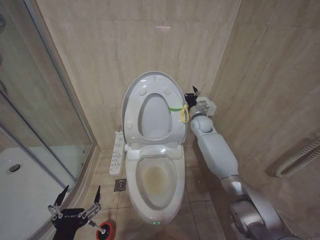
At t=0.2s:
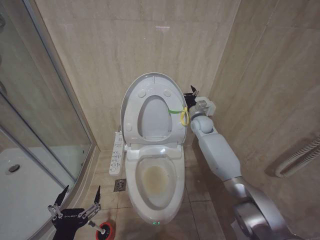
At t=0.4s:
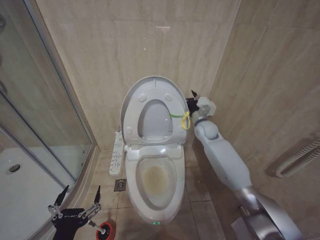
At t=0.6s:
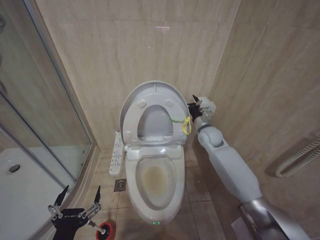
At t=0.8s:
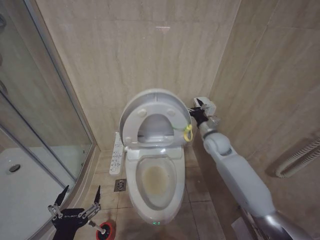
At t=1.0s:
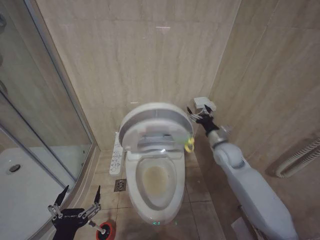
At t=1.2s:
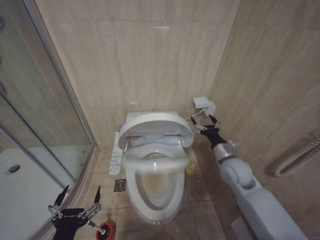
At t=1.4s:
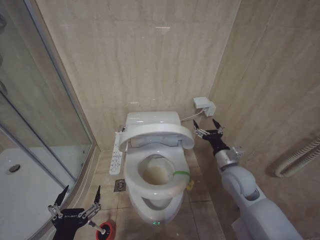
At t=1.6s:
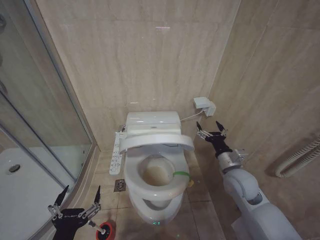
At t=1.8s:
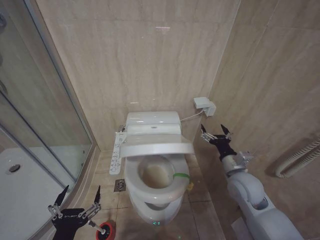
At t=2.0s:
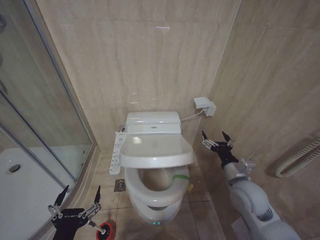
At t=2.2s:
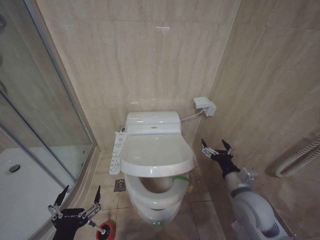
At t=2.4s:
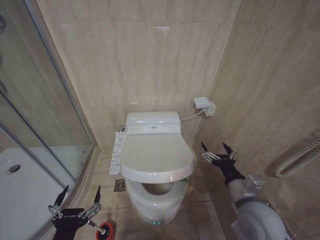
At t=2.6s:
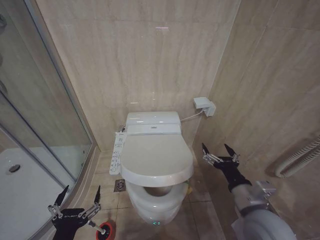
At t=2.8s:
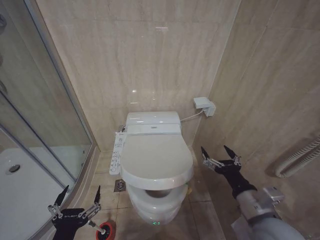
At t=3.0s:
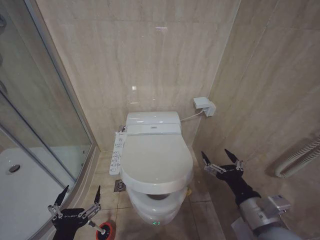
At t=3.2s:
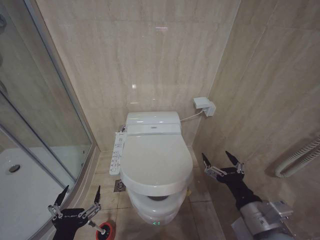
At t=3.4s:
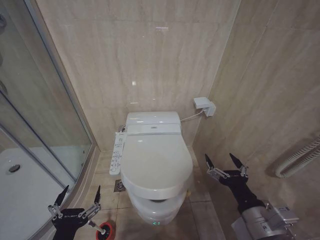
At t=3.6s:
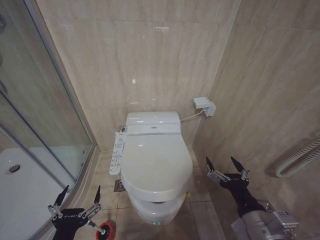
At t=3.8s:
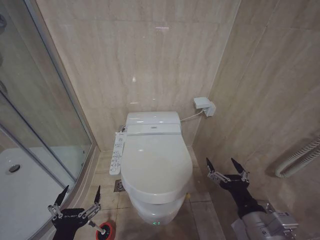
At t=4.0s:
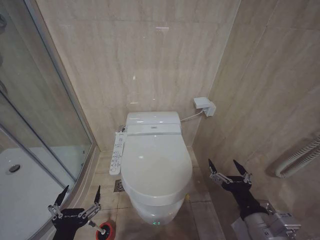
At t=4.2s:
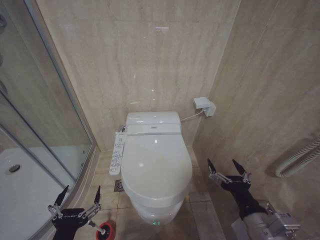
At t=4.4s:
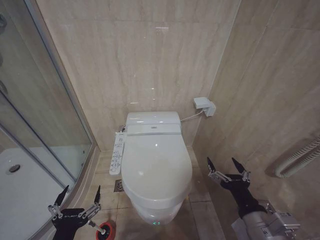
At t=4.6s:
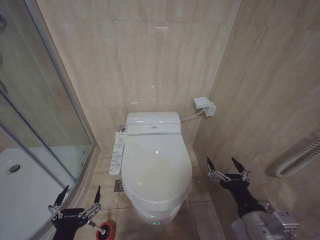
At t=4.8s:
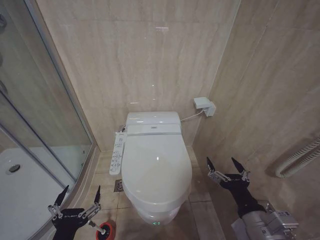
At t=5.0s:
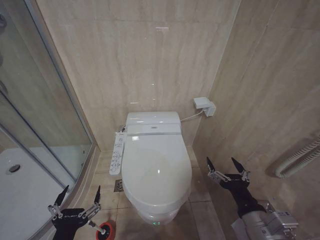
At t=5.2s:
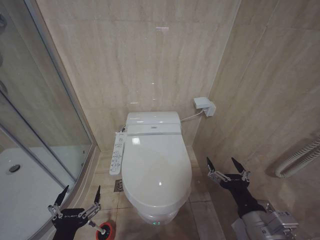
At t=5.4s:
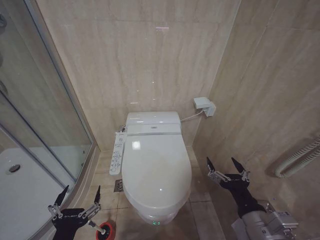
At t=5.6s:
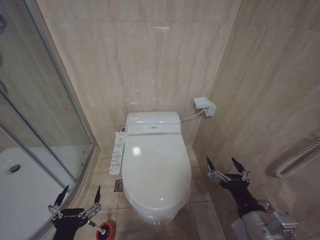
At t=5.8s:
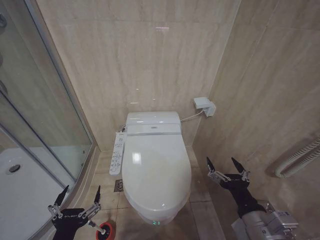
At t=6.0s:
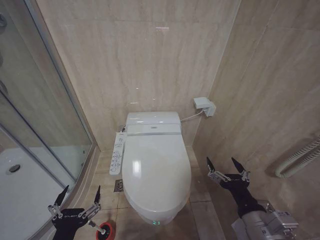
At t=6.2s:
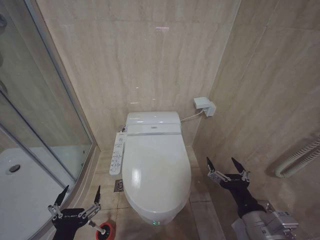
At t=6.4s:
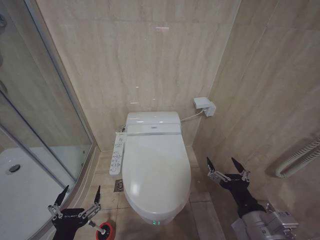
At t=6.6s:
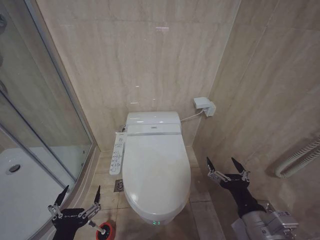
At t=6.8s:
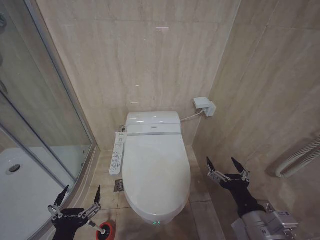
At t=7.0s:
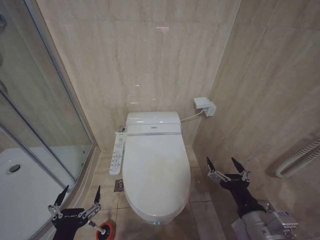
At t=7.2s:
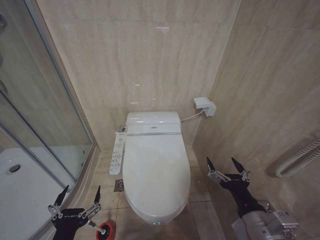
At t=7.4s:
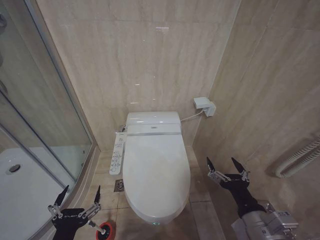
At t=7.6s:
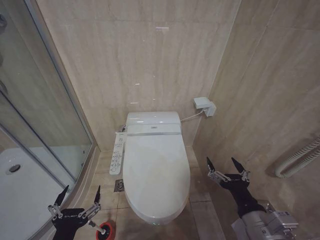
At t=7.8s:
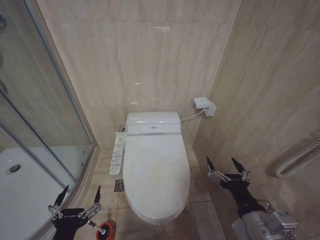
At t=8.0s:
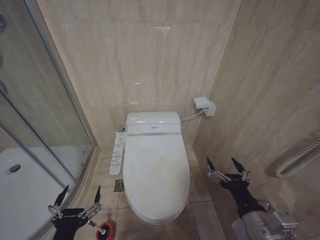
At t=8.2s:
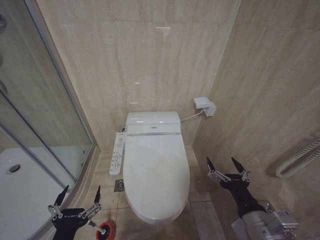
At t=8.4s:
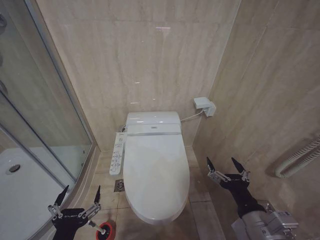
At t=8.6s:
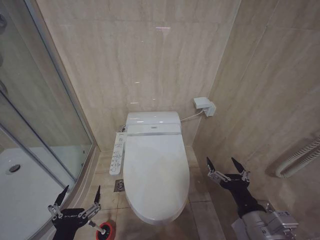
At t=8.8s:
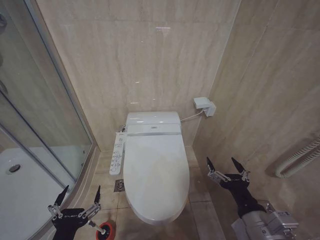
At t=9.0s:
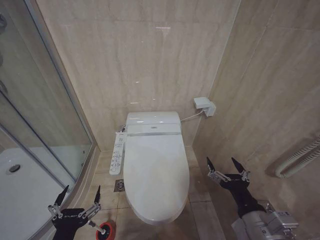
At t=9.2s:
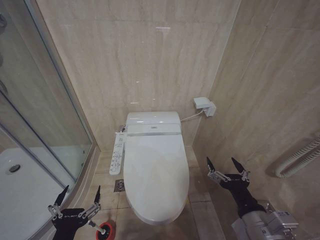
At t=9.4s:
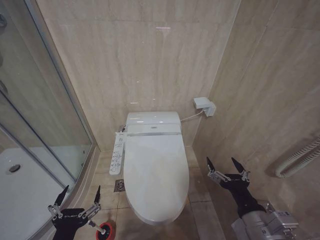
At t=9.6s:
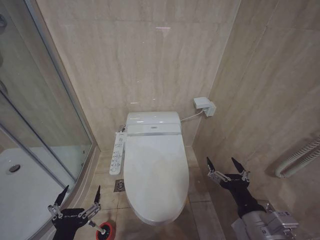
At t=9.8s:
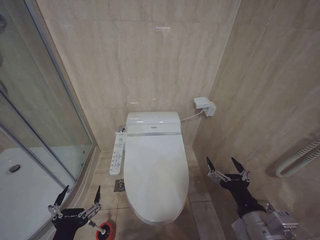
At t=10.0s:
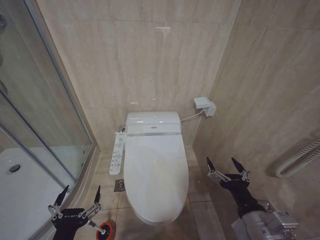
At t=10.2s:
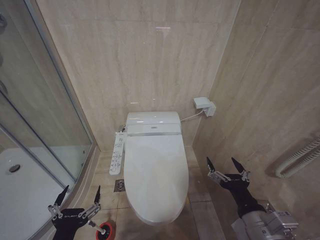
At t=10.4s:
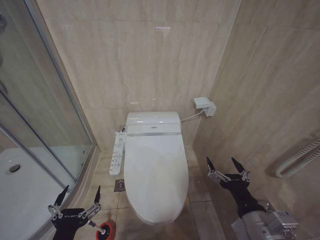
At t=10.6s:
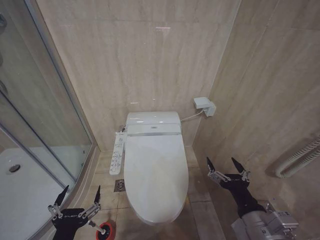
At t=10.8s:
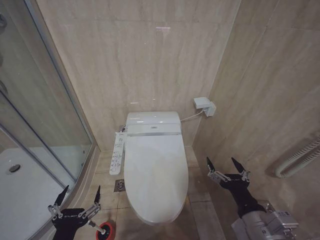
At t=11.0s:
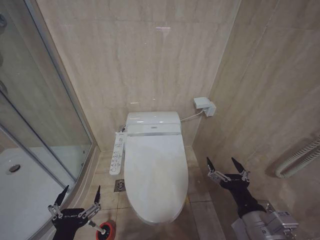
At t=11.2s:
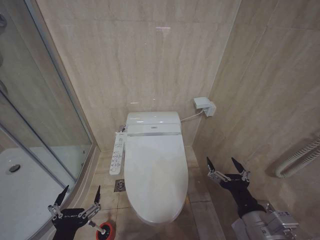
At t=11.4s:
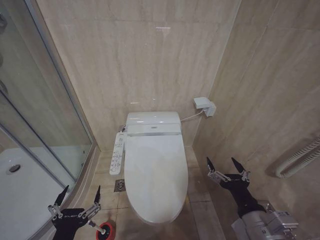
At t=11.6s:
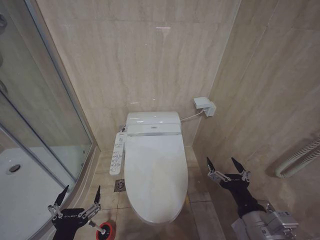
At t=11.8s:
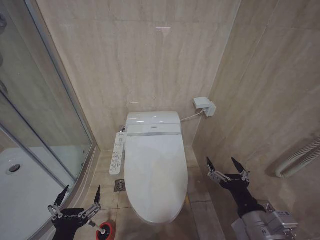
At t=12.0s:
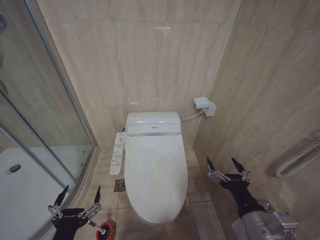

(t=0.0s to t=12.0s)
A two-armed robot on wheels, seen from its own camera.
Task of the whole recording: Open the toilet lid, clean the toilet bowl with a toilet brush, close the toilet lid, and flush.
t=0.0s - t=1.6s: The right gripper goes approximately 25 cm backward.
t=1.6s - t=3.0s: The right gripper goes about 15 cm backward.
t=3.0s - t=4.4s: The grippers stay close to where they were, moving slightly.
t=4.4s - t=12.0s: Both grippers stay about where they are.

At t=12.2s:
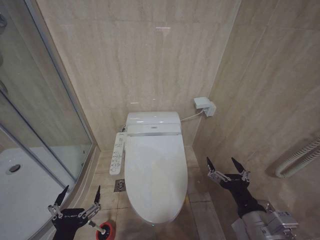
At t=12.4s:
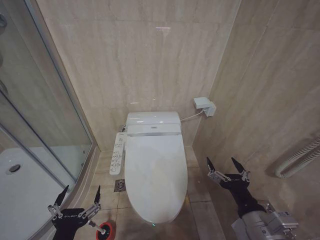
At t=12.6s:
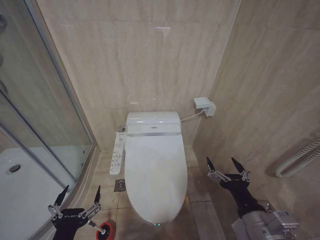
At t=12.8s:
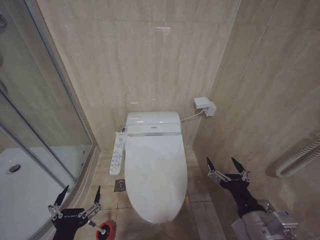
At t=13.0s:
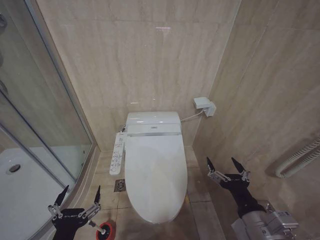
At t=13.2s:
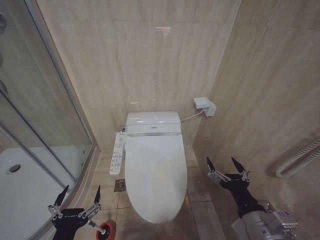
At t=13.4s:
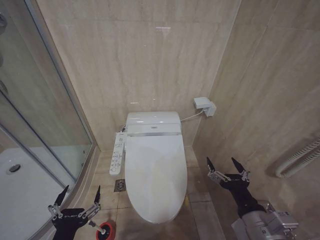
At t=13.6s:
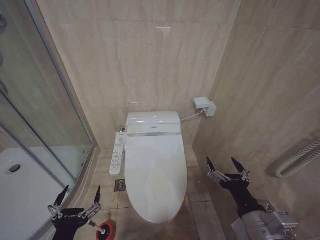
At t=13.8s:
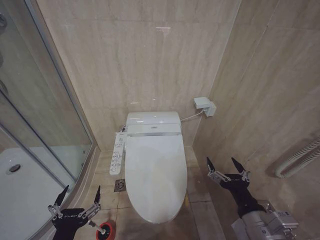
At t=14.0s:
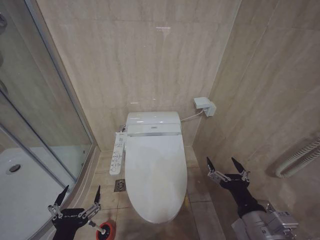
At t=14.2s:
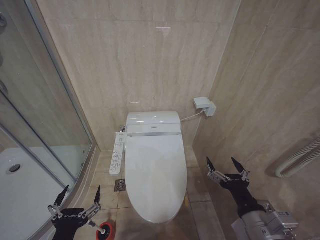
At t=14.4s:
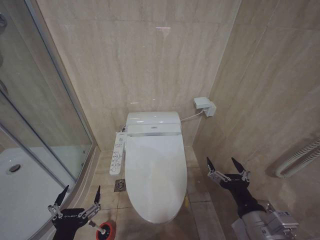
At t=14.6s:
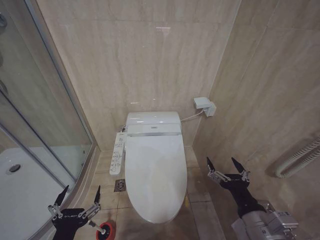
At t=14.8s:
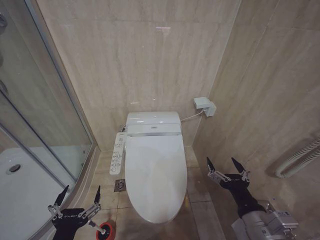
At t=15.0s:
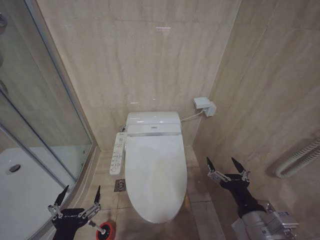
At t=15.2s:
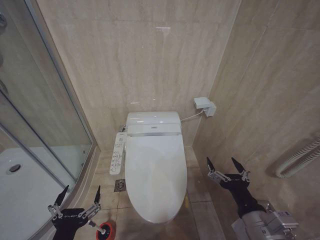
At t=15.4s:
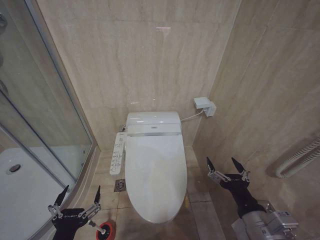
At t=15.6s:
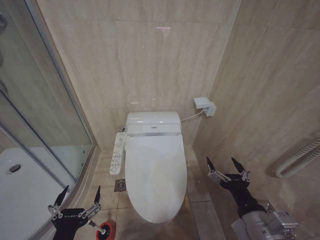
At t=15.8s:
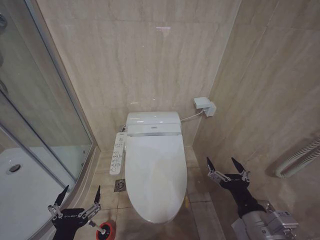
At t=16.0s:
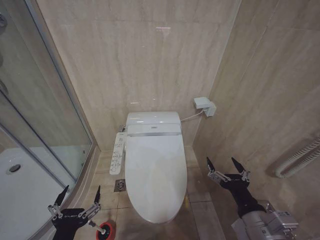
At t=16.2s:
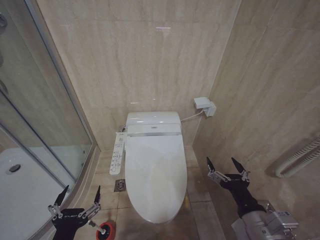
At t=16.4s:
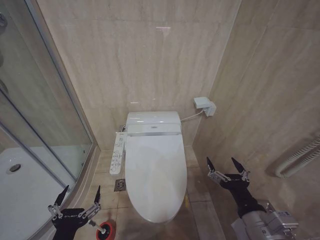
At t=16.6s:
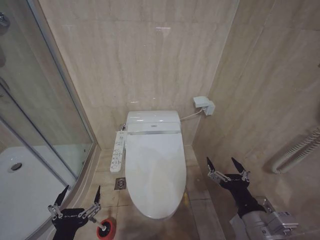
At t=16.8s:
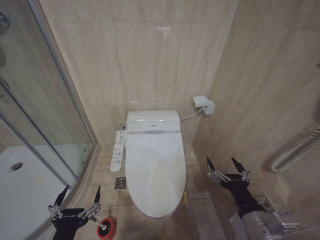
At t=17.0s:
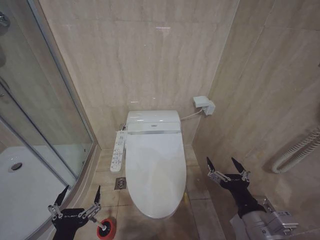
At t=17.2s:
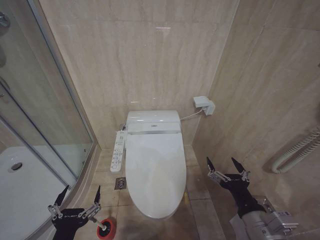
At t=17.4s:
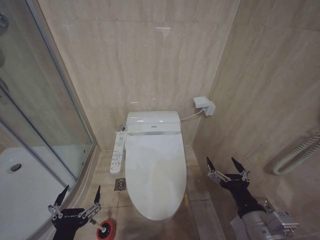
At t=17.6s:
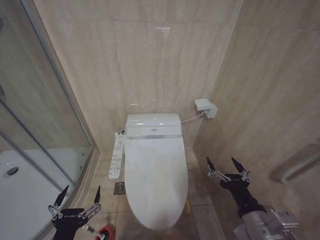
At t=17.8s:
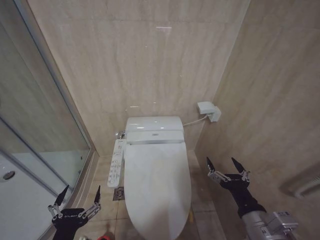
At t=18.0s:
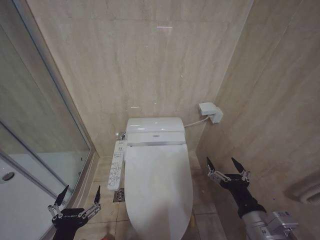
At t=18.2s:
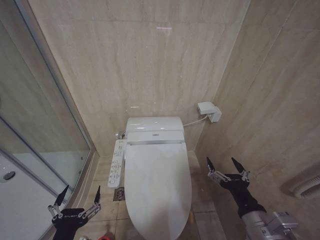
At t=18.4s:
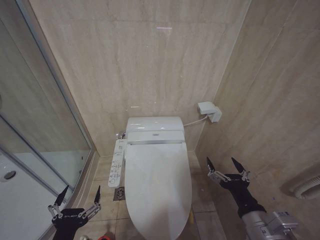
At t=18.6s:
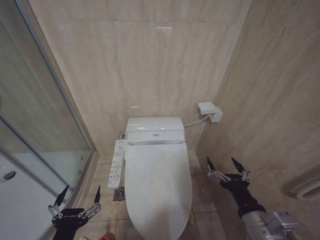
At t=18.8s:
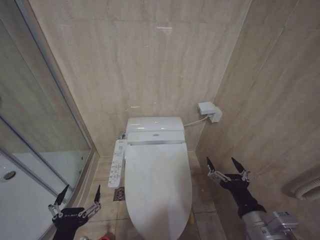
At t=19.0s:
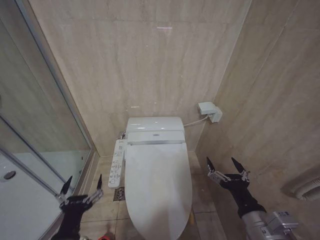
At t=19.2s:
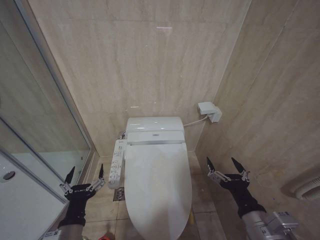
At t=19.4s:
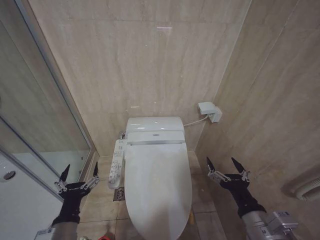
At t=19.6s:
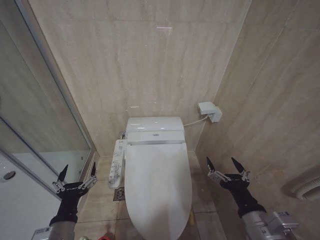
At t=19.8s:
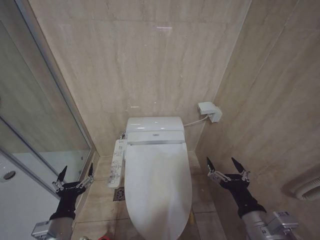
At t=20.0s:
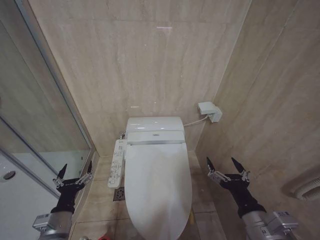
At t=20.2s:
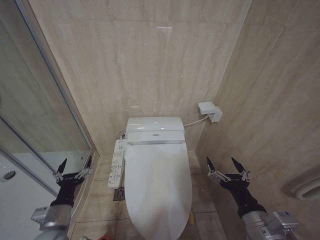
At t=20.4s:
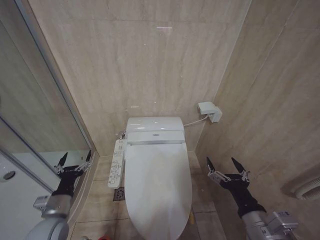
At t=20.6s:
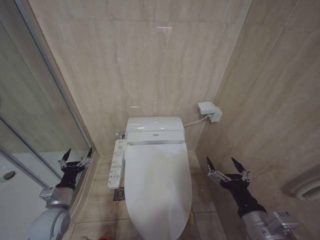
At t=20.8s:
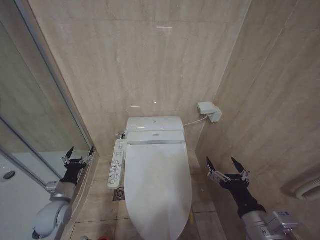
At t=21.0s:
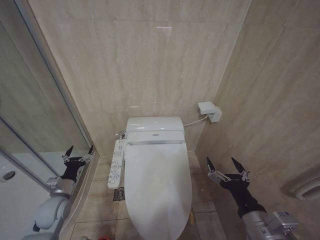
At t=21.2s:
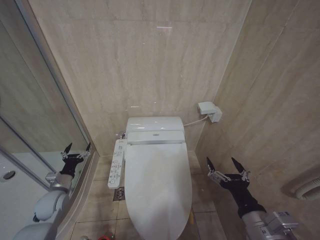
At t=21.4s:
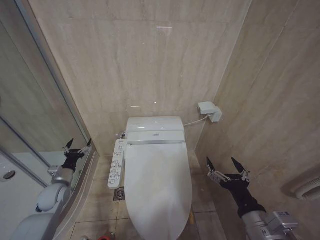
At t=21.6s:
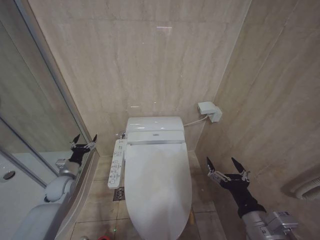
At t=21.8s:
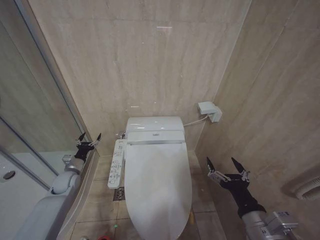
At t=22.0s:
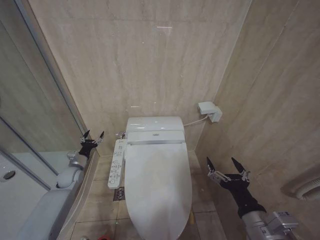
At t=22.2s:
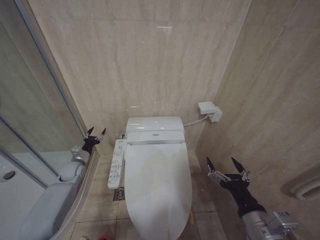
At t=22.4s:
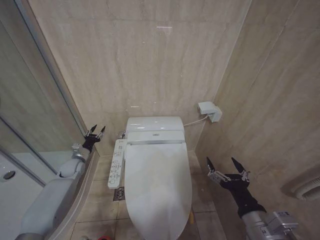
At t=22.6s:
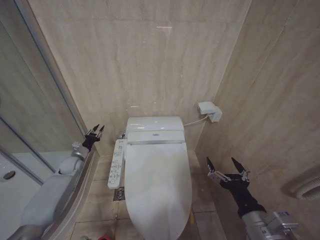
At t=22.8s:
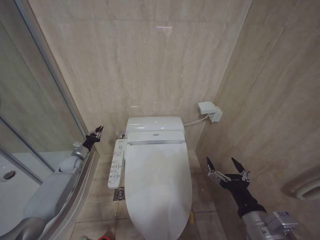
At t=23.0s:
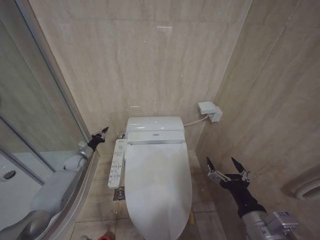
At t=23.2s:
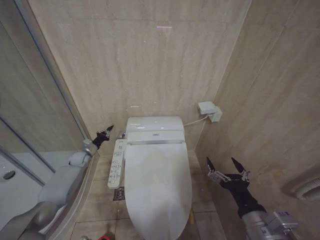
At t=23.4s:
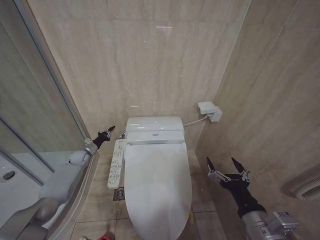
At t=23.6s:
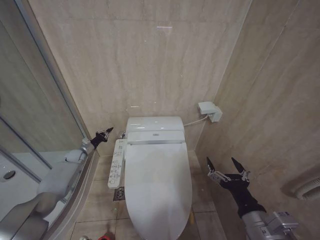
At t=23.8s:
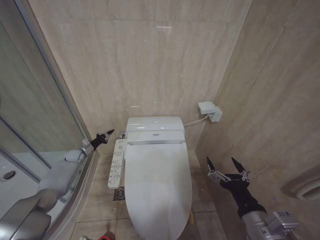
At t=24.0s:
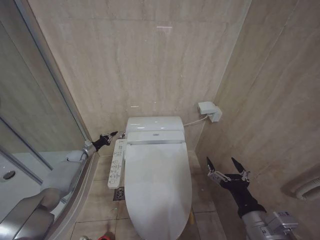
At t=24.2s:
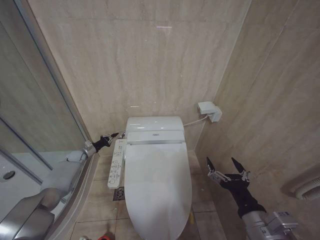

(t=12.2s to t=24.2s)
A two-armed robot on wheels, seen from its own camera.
Task of the whole recording: Open the toilet lid, clean the toilet bowl with a toilet brush, close the toilet lid, and flush.
t=12.2s - t=18.2s: Both grippers stay about where they are.
t=18.2s - t=19.8s: The left gripper travels forward by approximately 10 cm.
t=19.8s - t=21.2s: The left gripper is displaced forward and to the left by approximately 20 cm.
t=21.2s - t=22.6s: The left gripper goes roughly 15 cm forward, and closes its fingers.
t=22.6s - t=24.2s: The left gripper travels forward by some 10 cm, and closes up.
